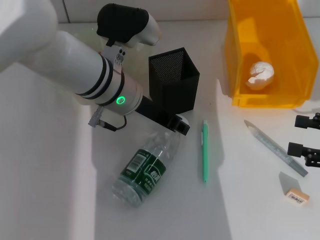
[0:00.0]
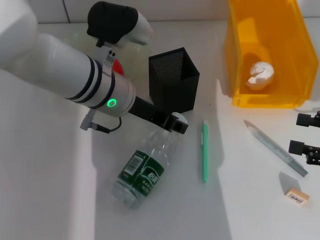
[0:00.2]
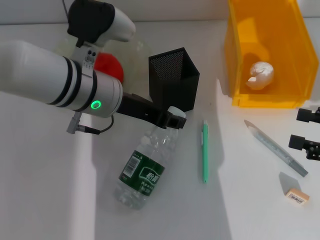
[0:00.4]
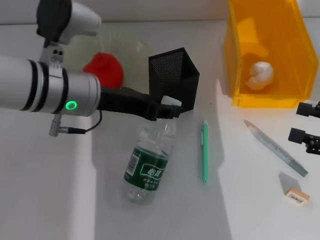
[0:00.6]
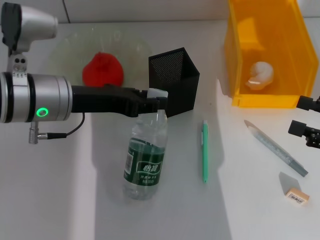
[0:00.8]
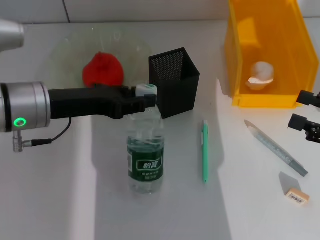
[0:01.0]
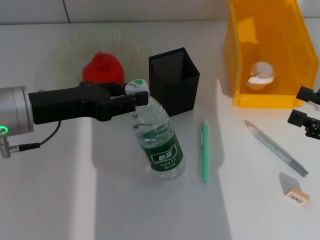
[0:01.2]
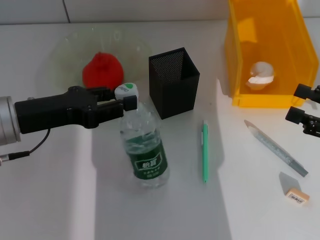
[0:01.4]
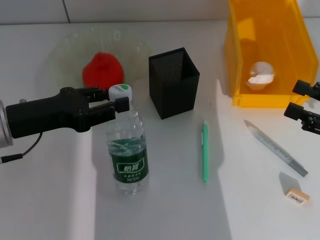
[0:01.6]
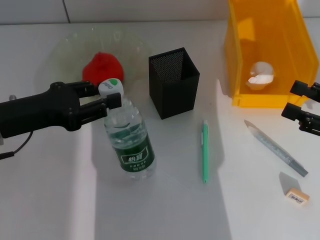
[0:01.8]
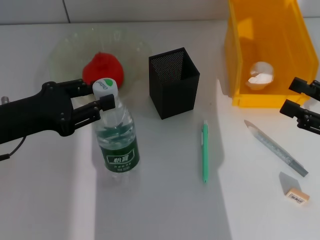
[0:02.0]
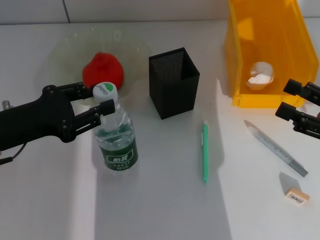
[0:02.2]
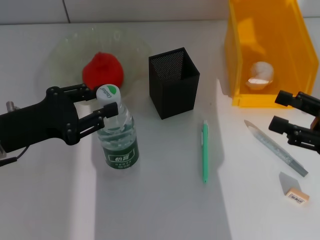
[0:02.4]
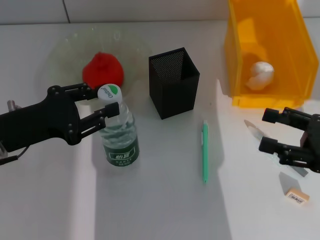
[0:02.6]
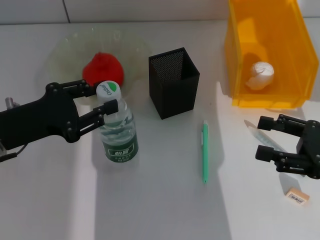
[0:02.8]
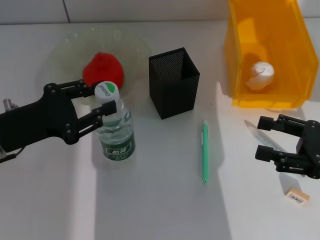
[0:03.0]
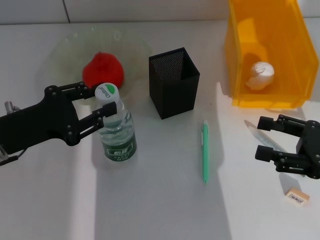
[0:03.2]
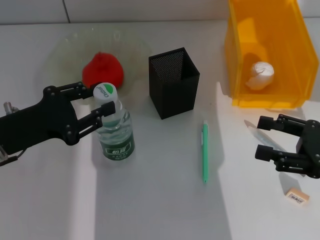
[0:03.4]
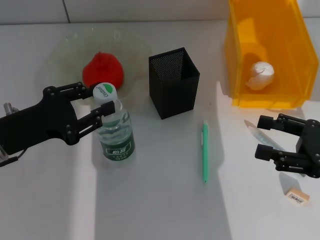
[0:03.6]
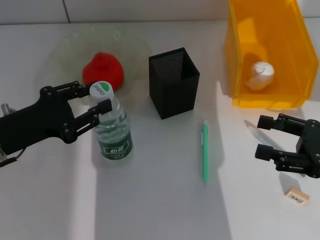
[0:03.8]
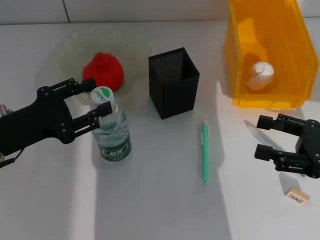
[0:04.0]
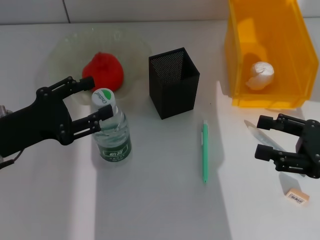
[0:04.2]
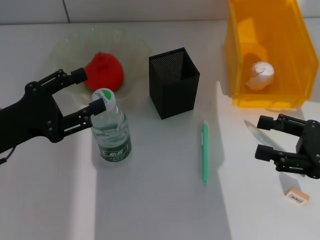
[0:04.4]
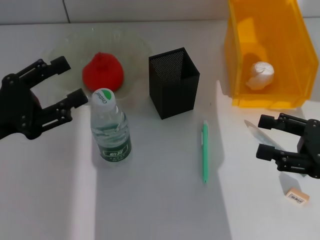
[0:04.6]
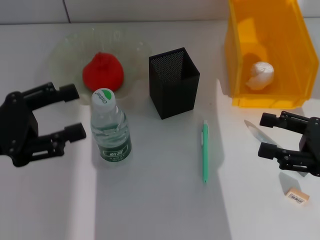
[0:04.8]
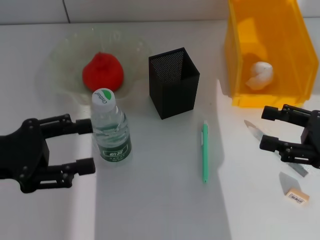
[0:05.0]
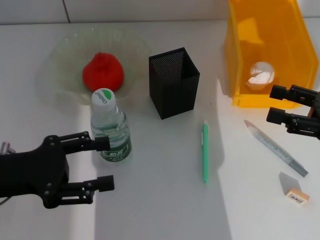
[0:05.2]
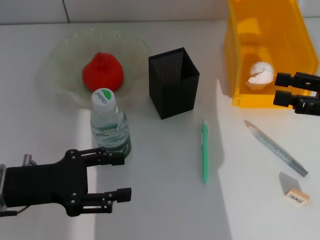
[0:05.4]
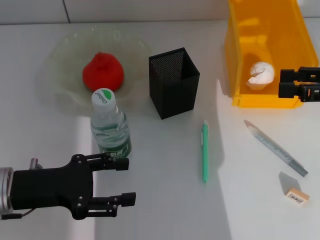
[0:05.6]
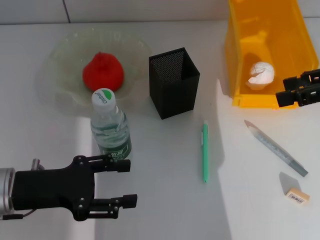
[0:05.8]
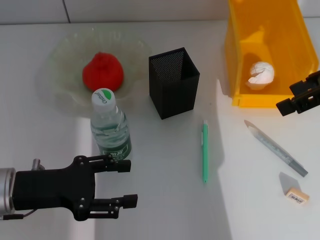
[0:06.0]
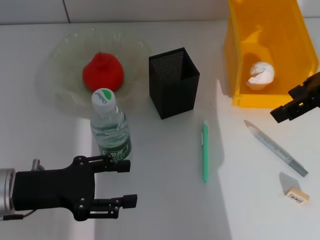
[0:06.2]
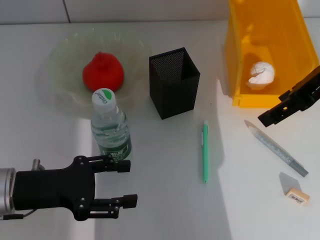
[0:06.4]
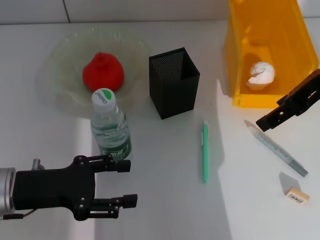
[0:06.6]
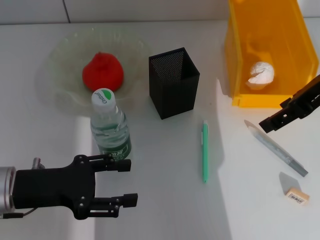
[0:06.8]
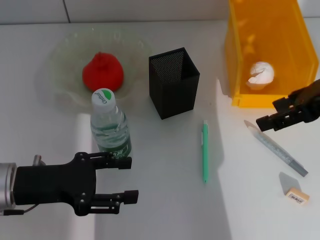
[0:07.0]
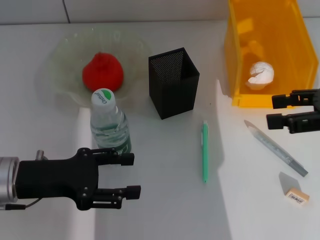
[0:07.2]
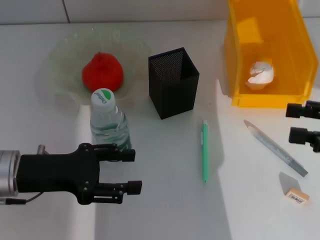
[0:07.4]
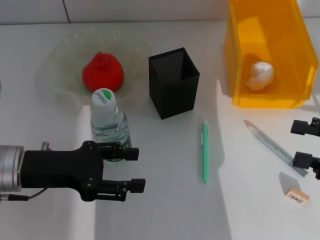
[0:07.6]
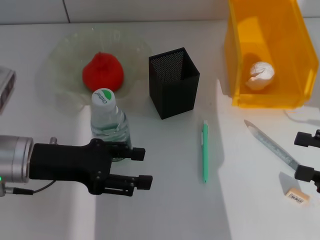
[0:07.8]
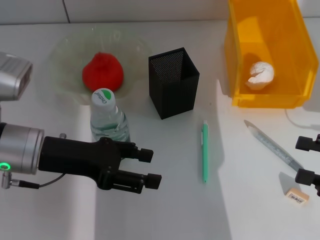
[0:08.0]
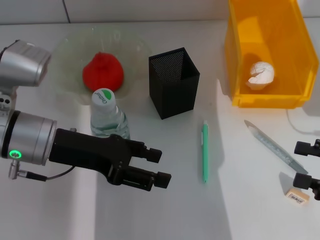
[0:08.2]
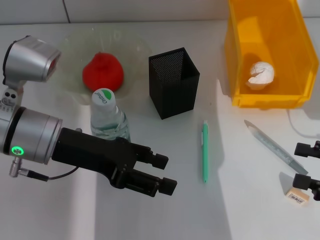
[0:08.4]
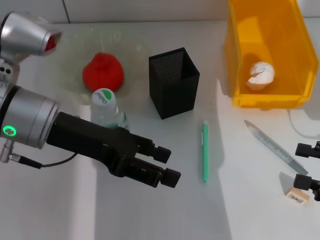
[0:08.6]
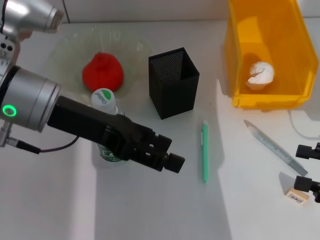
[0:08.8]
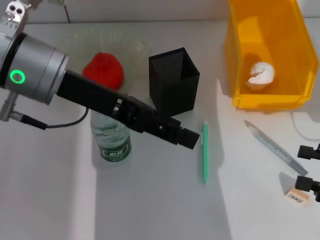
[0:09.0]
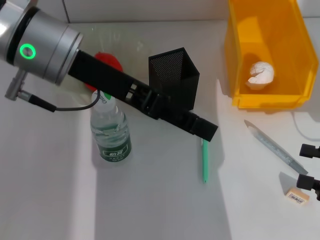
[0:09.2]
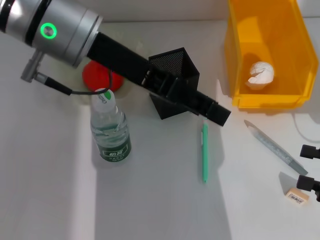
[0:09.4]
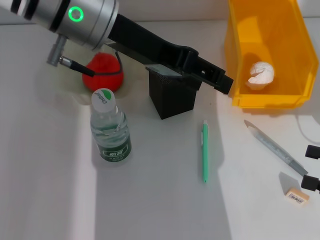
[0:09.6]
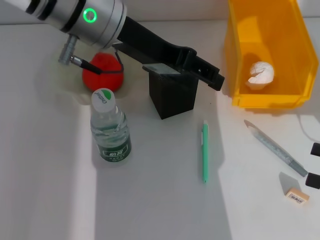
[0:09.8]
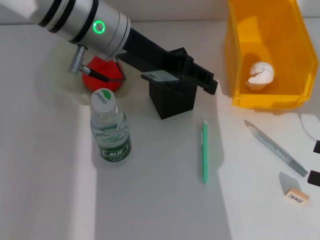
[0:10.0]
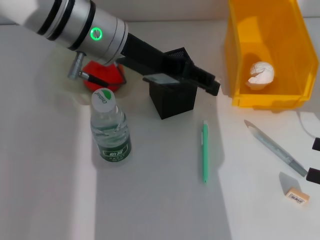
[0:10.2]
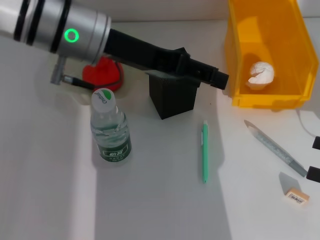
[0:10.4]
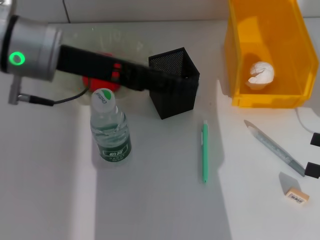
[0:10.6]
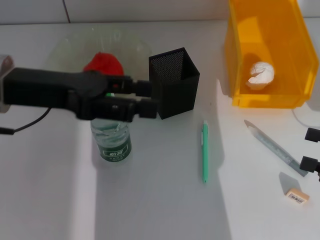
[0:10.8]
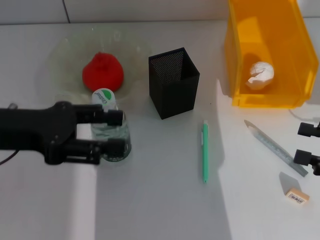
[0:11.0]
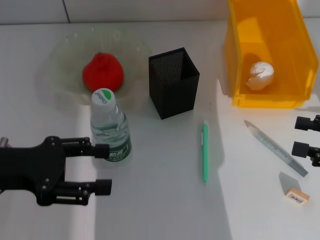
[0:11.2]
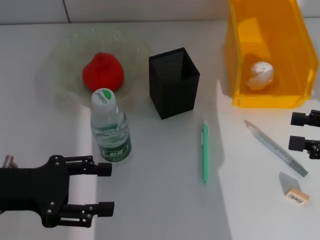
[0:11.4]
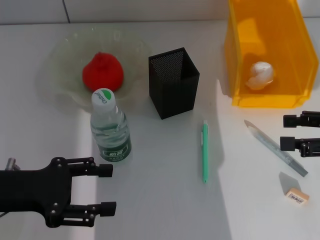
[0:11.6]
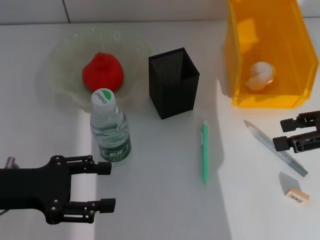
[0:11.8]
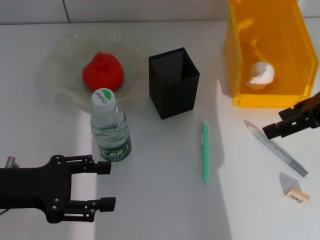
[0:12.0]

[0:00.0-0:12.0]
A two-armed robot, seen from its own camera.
Step, 0:00.0 to 0:04.2: Place the water bottle on the table with the left hand.
0:00.0 to 0:01.6: The left gripper travels to the left and backward by approximately 20 cm.
0:03.0 to 0:04.4: The left gripper opens.
0:04.4 to 0:06.0: The right gripper goes some 20 cm upward and forward.
0:06.0 to 0:07.6: The right gripper heads downward, backward and to the right, covering about 20 cm.
0:07.6 to 0:09.0: The left gripper travels upward, to the right and forward by approximately 15 cm.
0:10.4 to 0:12.0: The left gripper shifts approximately 25 cm to the left, backward and downward. The right gripper heads upward, forward and to the left, covering about 20 cm.

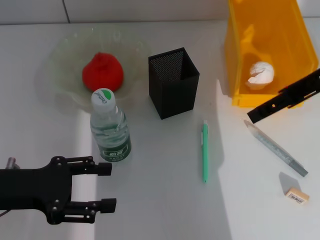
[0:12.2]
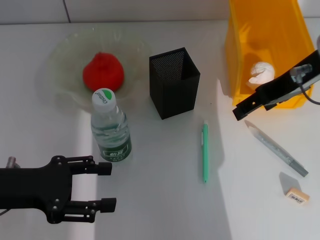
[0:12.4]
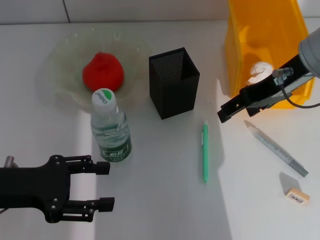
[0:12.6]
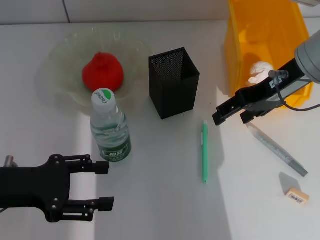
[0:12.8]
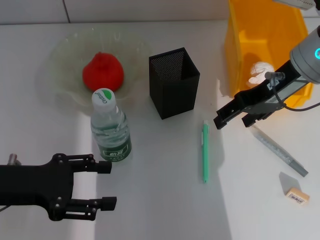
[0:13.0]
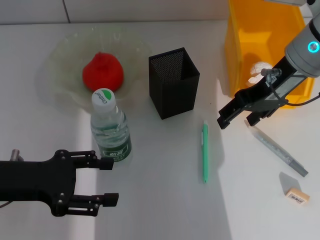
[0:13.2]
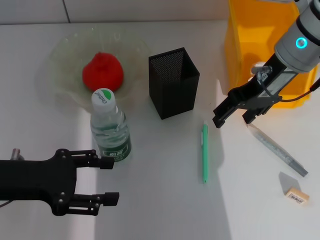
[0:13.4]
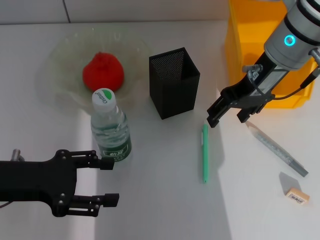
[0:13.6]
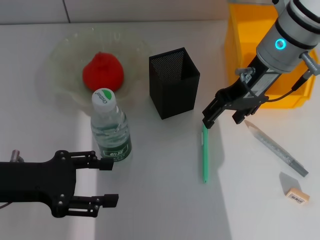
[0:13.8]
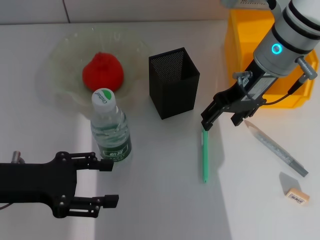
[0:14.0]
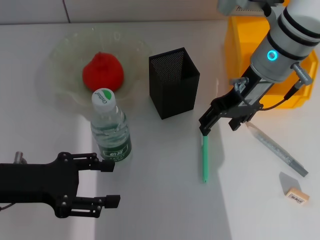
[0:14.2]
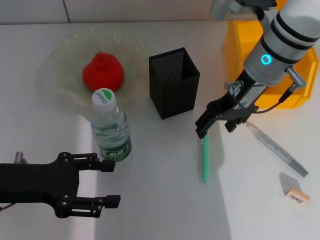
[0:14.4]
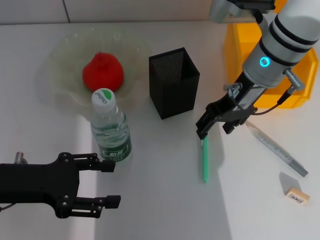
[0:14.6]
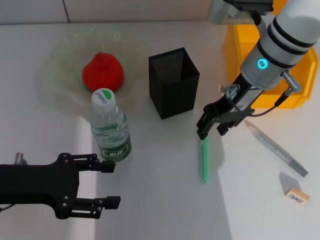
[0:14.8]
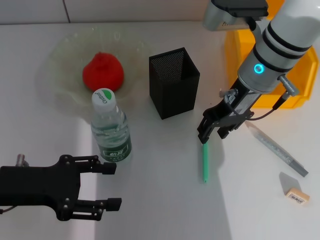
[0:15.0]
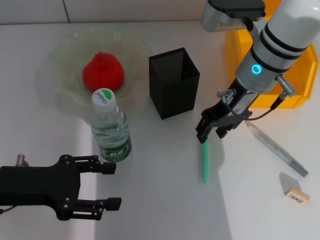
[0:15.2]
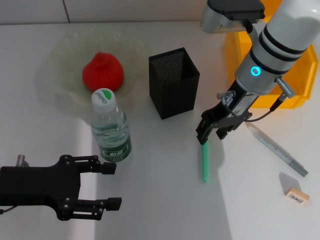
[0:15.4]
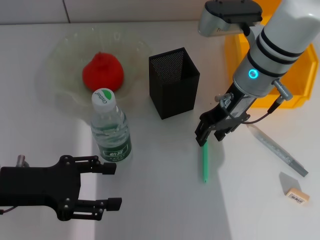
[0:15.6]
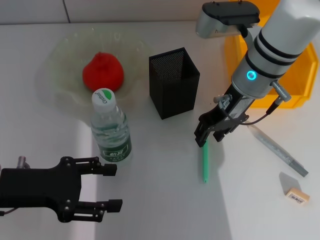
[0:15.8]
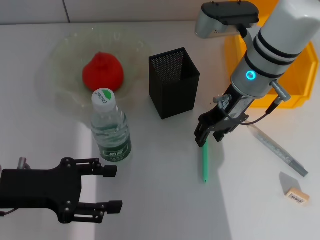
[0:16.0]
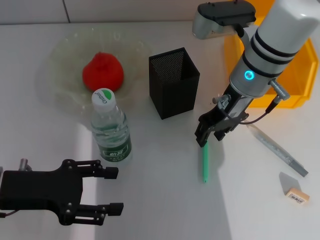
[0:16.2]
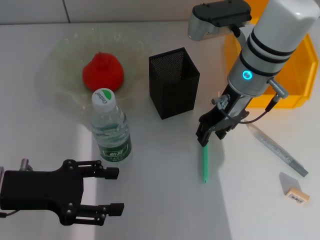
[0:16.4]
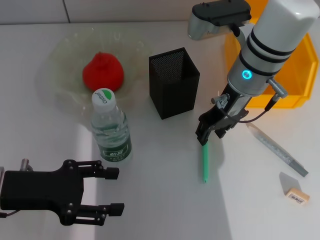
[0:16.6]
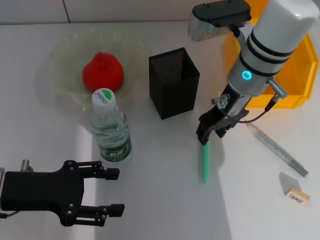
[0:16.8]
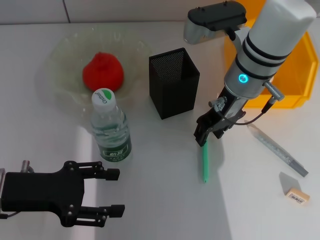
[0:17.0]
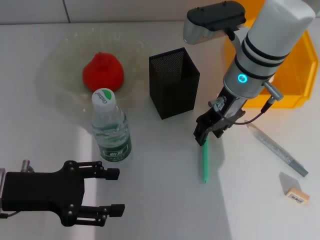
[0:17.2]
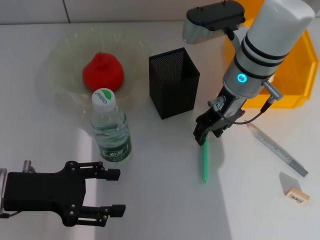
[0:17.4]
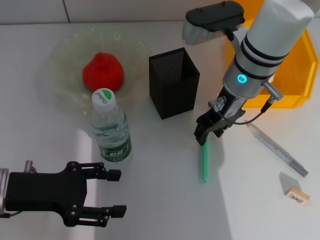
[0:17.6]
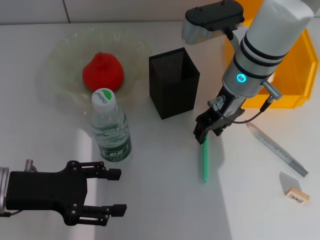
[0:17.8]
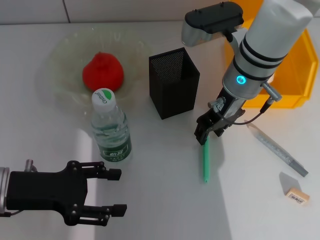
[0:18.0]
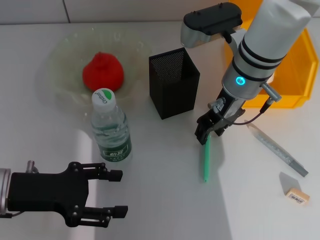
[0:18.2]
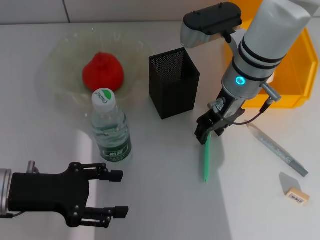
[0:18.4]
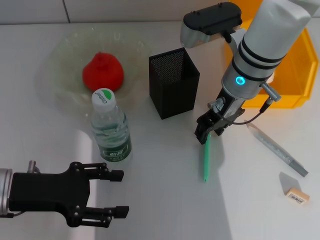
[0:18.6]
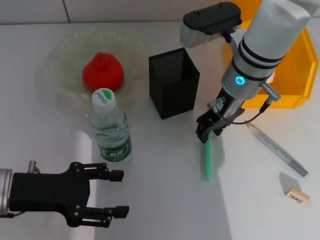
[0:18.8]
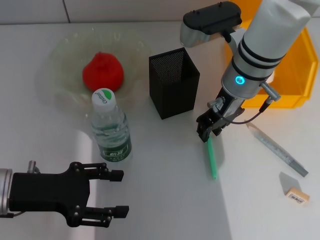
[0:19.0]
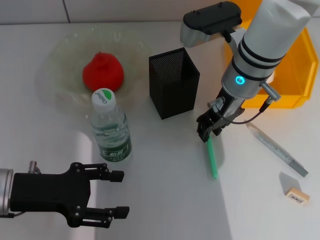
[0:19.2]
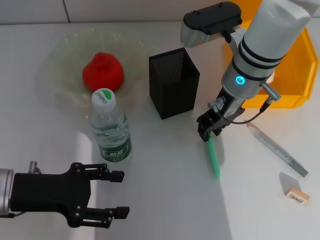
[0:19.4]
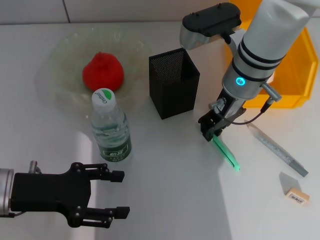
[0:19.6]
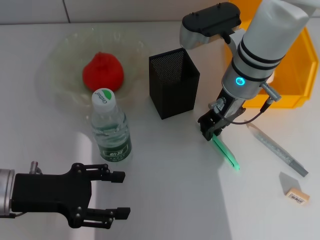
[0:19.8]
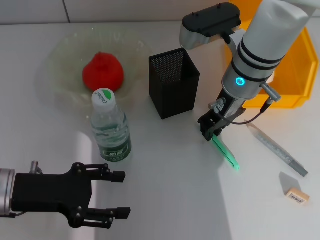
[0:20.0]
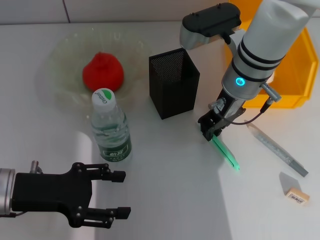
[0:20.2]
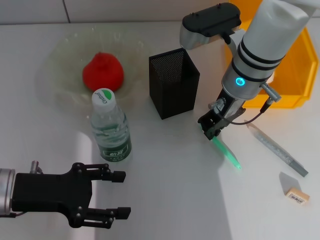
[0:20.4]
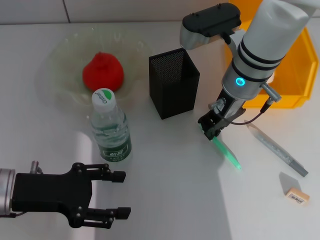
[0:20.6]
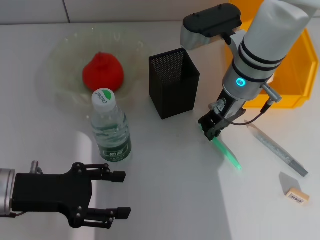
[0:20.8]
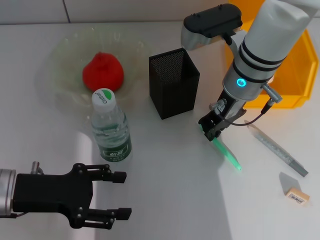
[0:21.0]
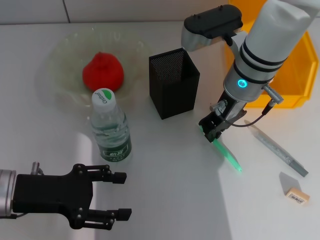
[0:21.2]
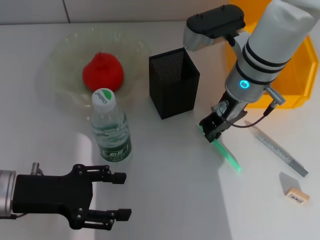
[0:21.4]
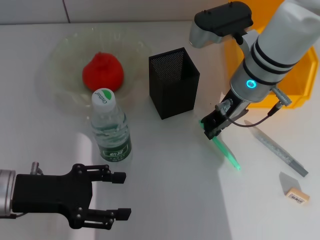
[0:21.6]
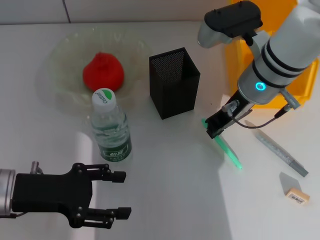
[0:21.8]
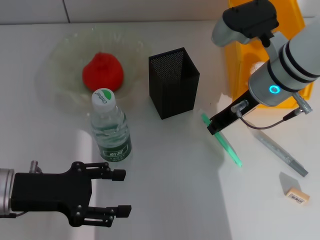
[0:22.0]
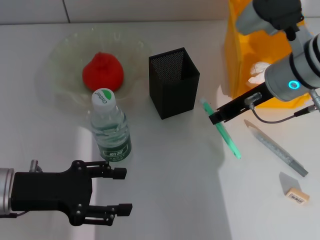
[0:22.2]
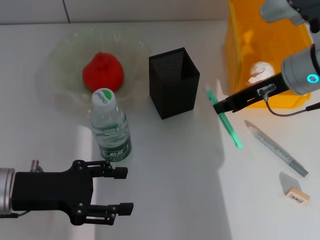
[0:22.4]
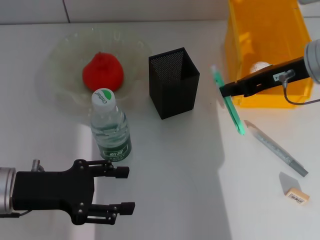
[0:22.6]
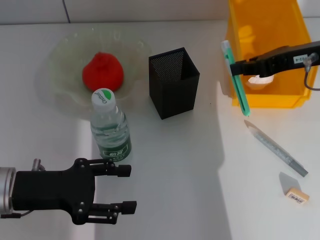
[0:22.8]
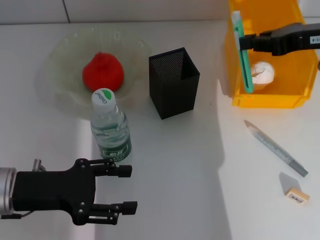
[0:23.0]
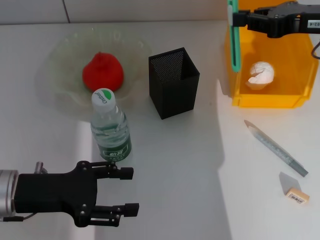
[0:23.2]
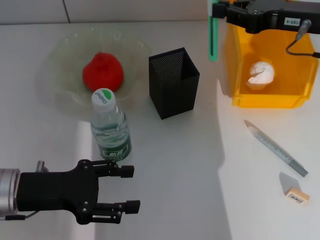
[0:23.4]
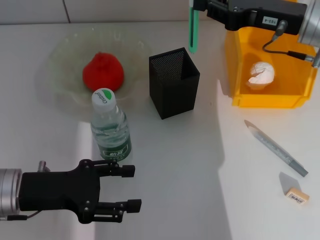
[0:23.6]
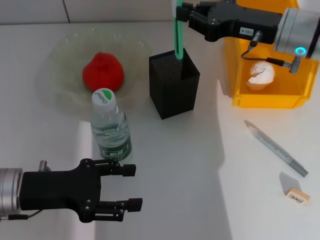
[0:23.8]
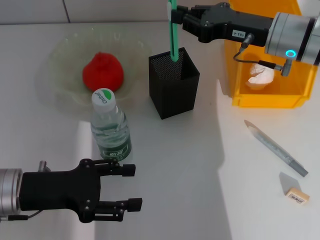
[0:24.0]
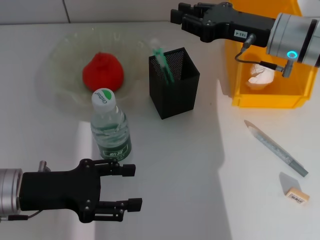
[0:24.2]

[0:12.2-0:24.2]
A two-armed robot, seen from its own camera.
Step, 0:12.2 to 0:20.8: Grab the blue utility knife with the right hand.
0:12.2 to 0:13.8: The right gripper is displaced to the left, forward and downward by some 10 cm.
0:13.8 to 0:16.6: The grippers make only small movements.
0:16.6 to 0:18.2: There are only small adjustments of the grippers.
0:18.2 to 0:21.2: Both grippers stay put.
0:21.2 to 0:22.6: The right gripper travels to the right by some 10 cm.
0:22.6 to 0:24.2: The right gripper changes place by roughly 5 cm.
